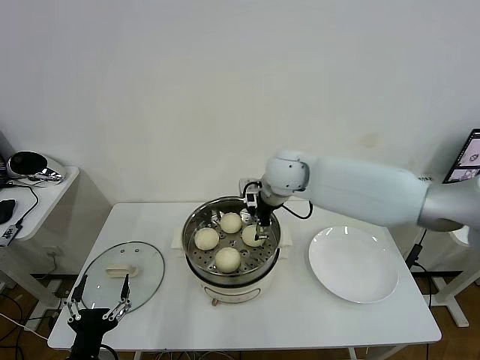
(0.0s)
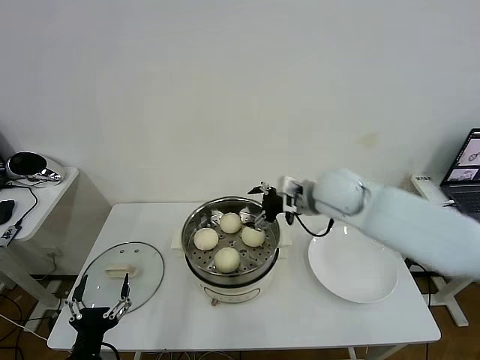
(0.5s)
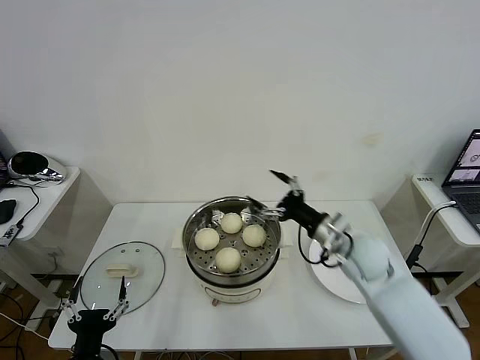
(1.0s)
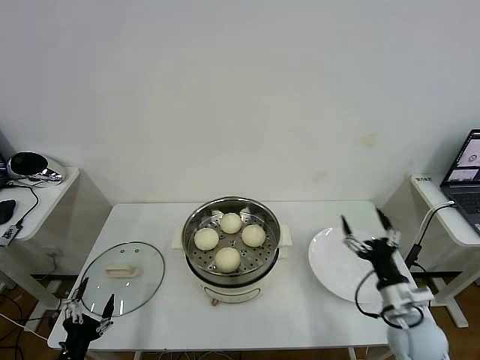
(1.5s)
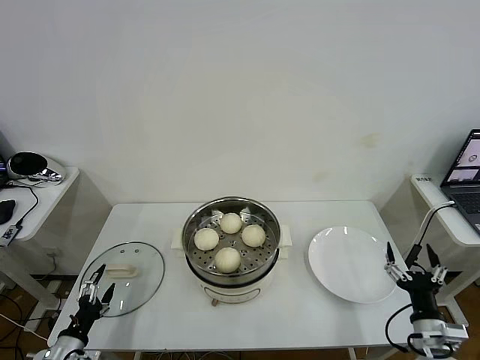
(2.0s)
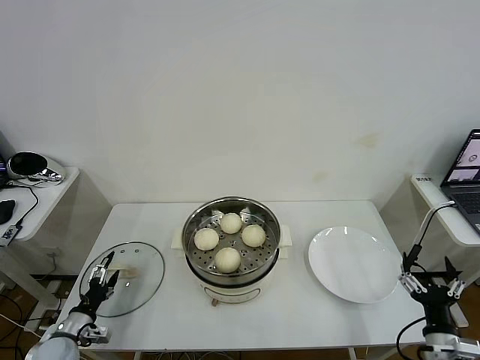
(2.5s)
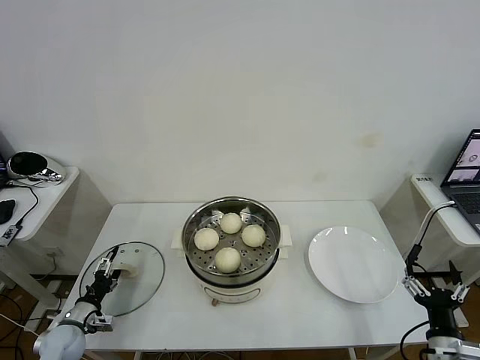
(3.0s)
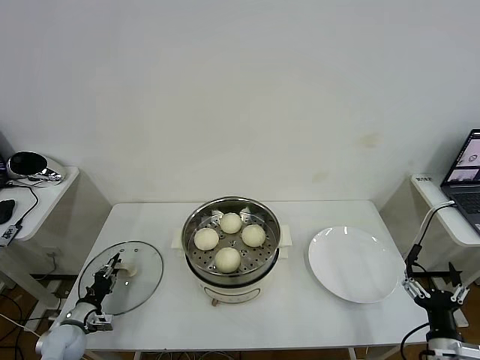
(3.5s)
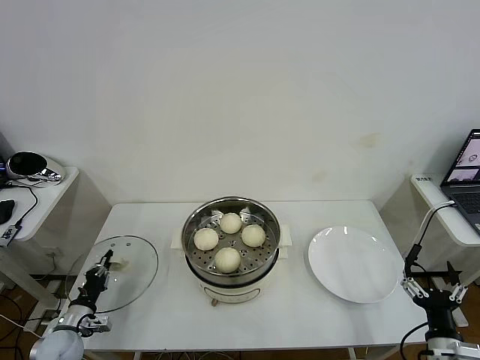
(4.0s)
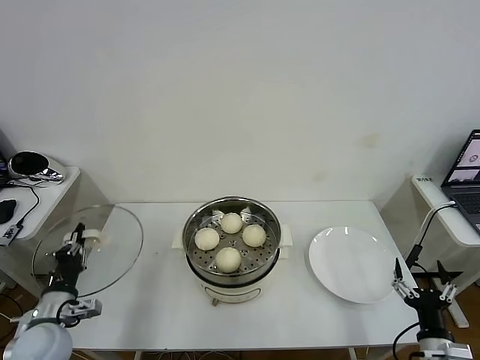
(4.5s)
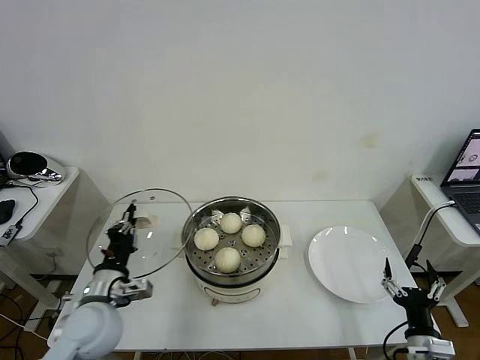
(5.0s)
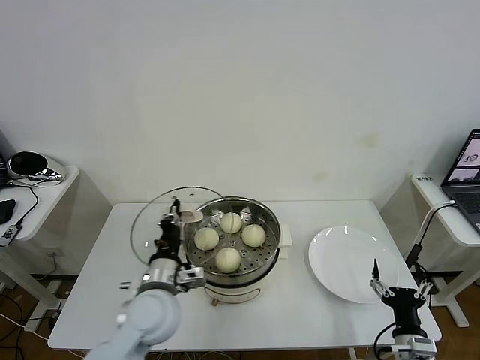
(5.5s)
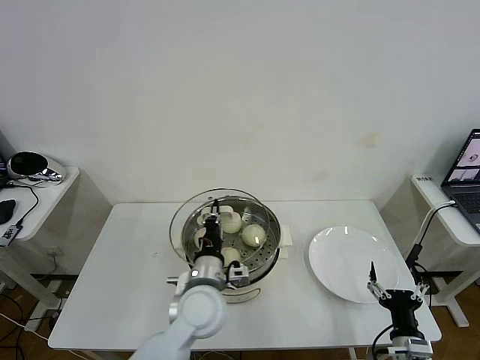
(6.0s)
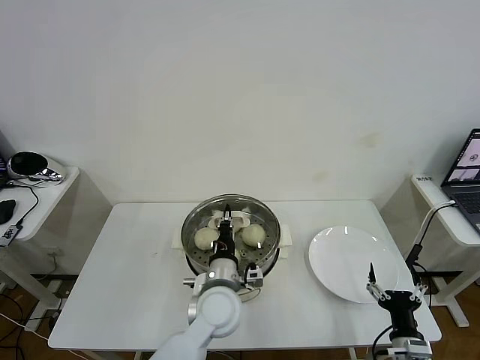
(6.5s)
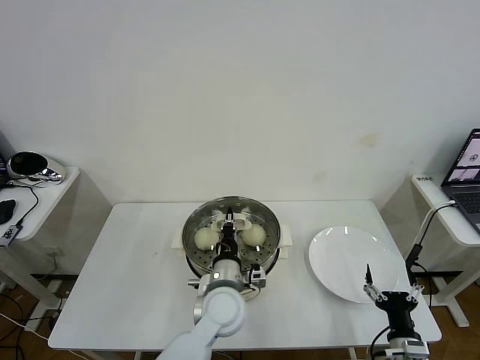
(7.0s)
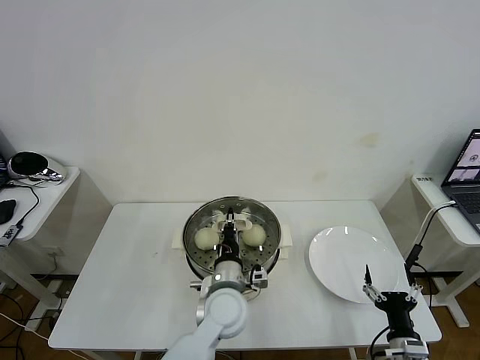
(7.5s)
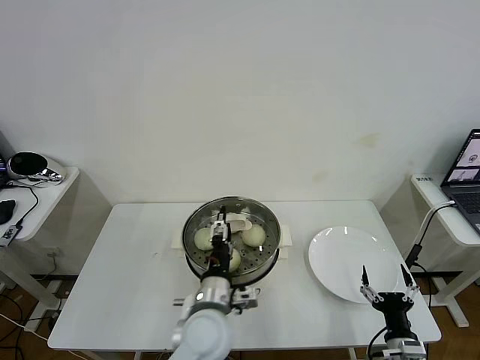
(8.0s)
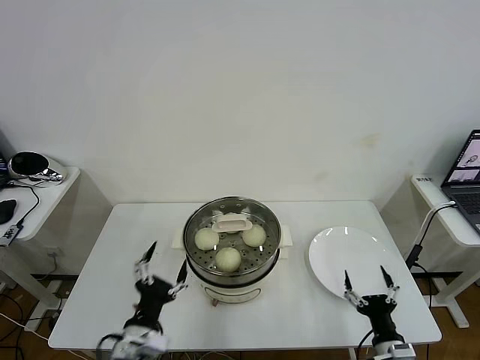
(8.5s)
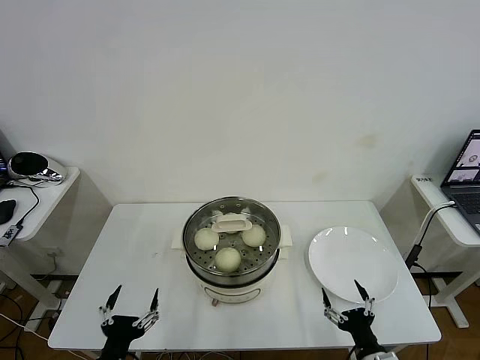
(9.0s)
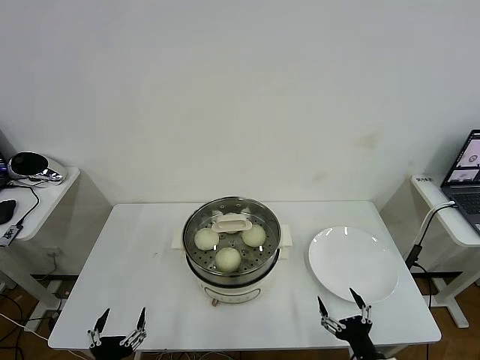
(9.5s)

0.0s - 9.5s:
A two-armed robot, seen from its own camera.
Task of the whole recording: take steamed baozi put them in steamer then cover it.
Step, 0.5s - 3.5s: Grasp the pot lid with left gripper.
Step, 4.0s - 8.0s: Place the pot lid on the steamer with left gripper.
0.0s - 2.0s: The right gripper is displaced backward, to the right and downward by some 50 cm, while the left gripper is displaced to the left, downward and forward by approximately 15 cm.
2.0s - 4.0s: The left gripper moves forward, roughly 10 cm, and closes up.
4.0s - 5.5s: The left gripper goes roughly 35 cm to the right and upward; the right gripper ends up roughly 5 cm from where it was.
5.5s - 7.5s: The left gripper travels to the right by some 15 cm.
7.5s - 9.5s: The left gripper shifts some 35 cm to the left and backward, and opens up, while the right gripper shifts by approximately 5 cm.
